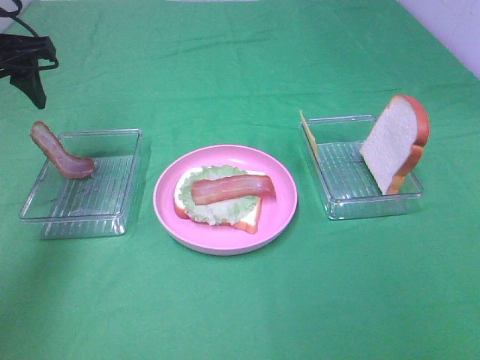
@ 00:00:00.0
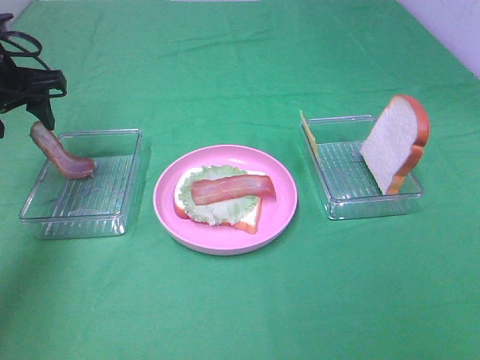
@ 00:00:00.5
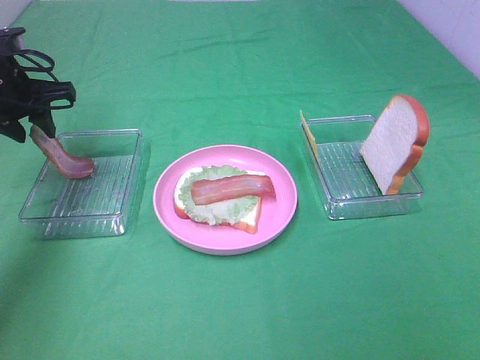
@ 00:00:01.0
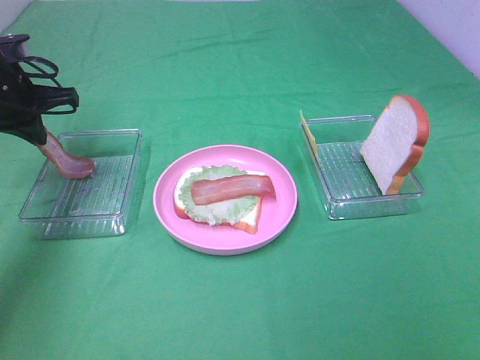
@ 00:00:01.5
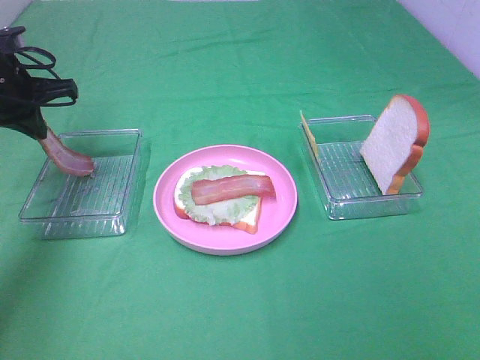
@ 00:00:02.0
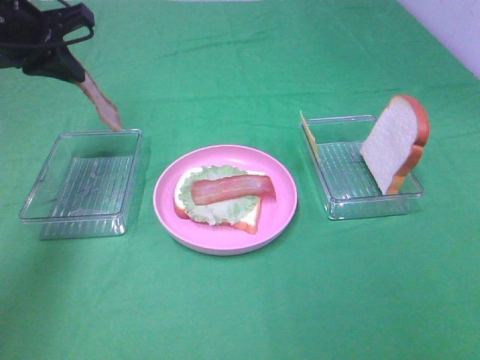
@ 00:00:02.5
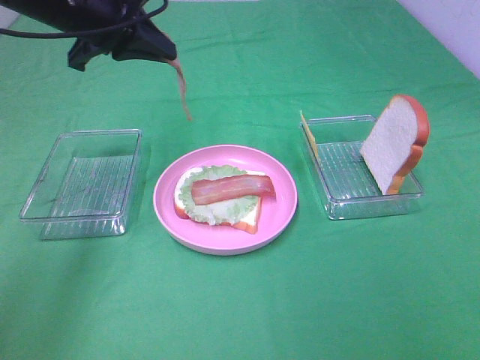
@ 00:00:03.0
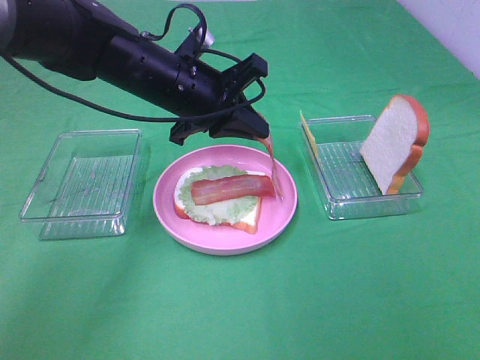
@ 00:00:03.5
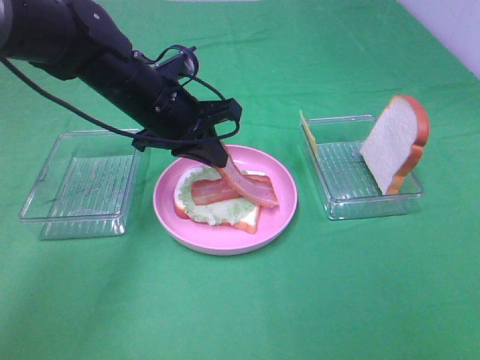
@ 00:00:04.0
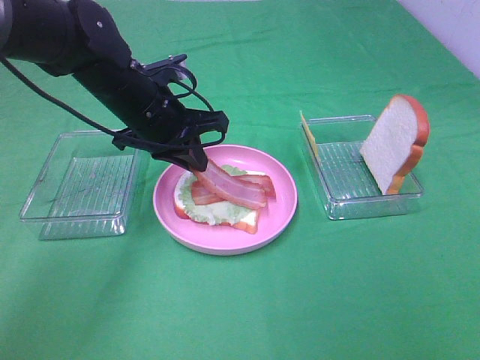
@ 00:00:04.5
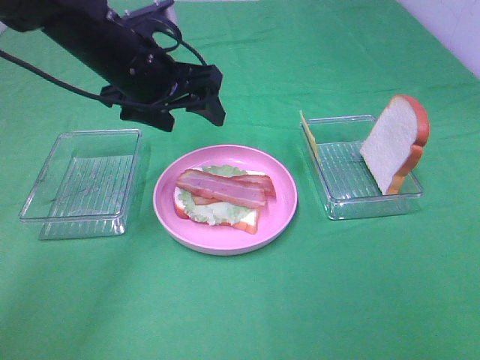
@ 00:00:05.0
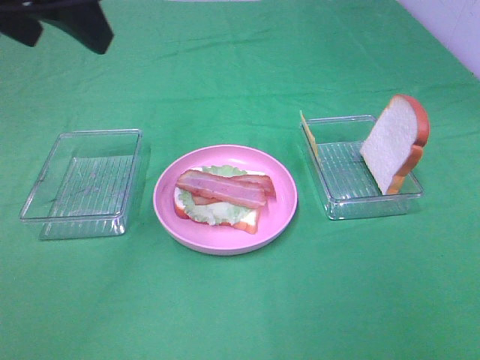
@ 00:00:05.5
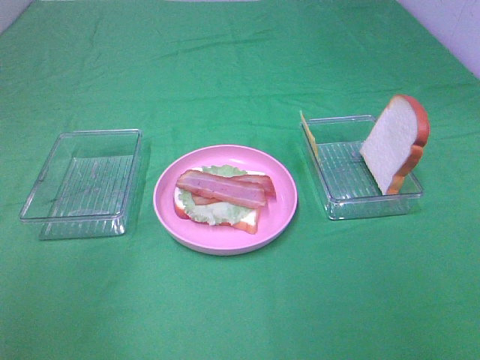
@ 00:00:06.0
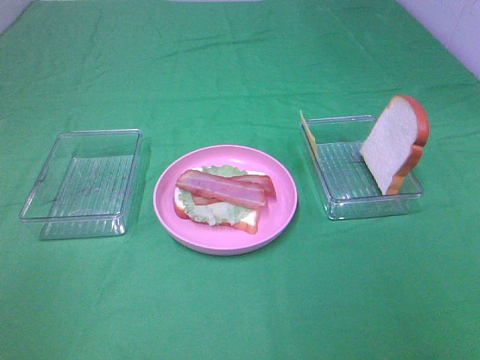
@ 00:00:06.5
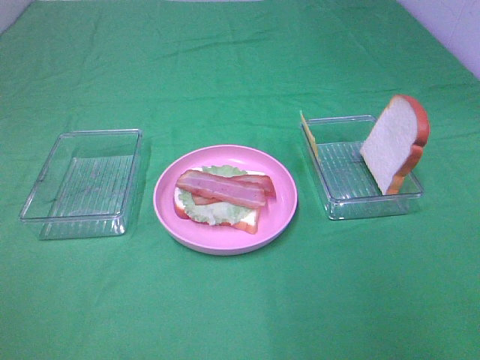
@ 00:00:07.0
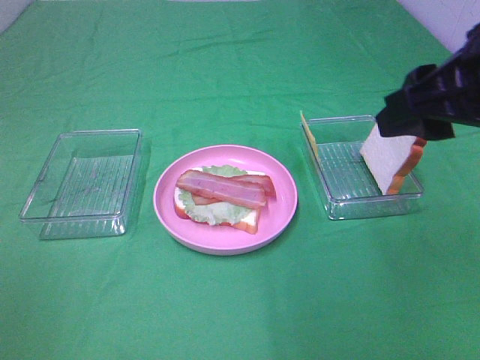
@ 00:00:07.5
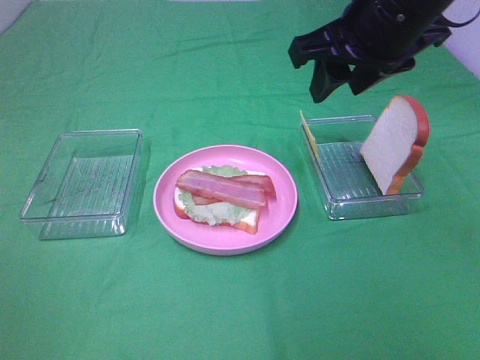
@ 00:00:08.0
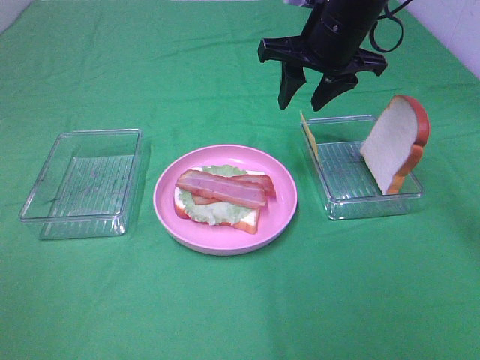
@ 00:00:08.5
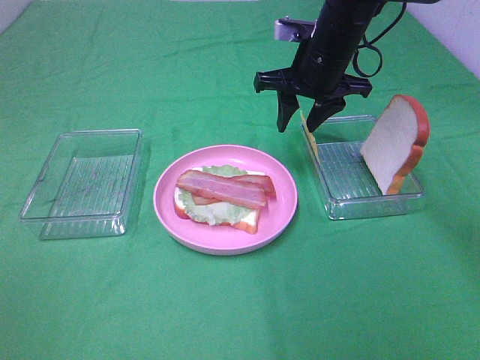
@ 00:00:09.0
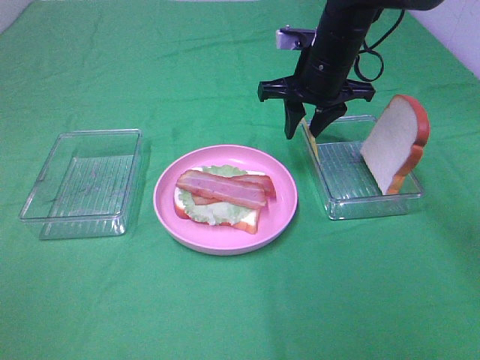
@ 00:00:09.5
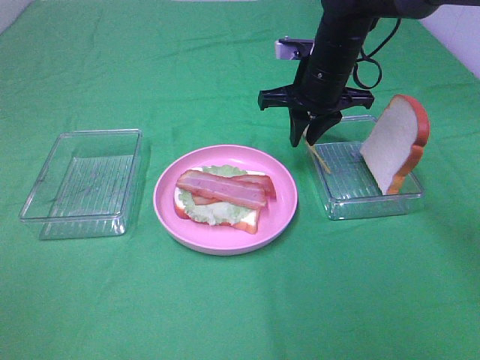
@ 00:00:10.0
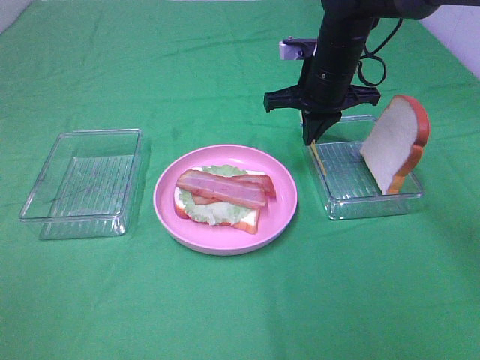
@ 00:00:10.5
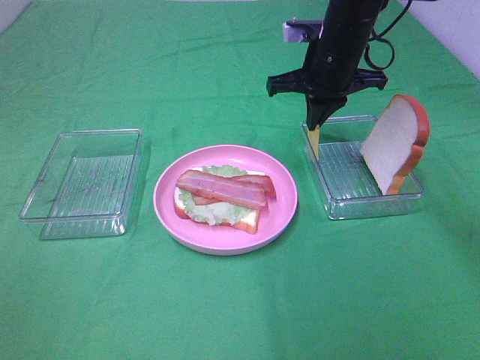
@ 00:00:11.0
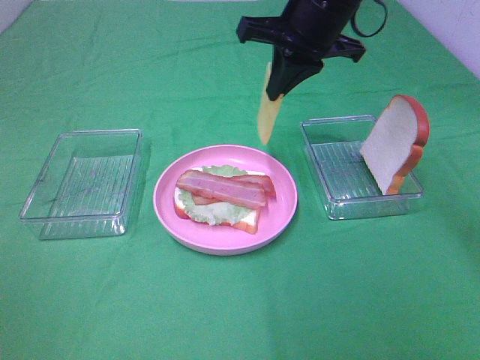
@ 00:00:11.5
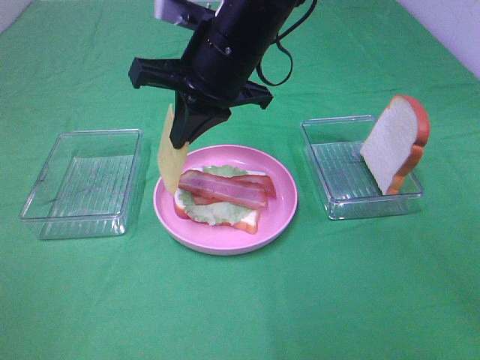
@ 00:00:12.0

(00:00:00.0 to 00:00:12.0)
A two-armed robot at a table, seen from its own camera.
Task of the whole recording: Make sandwiches.
Step, 00:00:00.0 - 00:00:02.0: Left hand:grab the bacon.
Step, 00:00:02.5 - 00:00:05.0: Left hand:place bacon on bacon.
Step, 00:00:05.5 - 00:00:10.5: Right hand:grab the cheese slice.
00:00:00.0 - 00:00:02.0: The left gripper shifts some 5 cm downward, and closes its fingers.
00:00:02.0 - 00:00:04.0: The left gripper travels to the right by about 20 cm.
00:00:04.0 - 00:00:06.0: The left gripper is displaced backward, upward and to the left by some 35 cm, and opens up.
00:00:06.0 - 00:00:08.0: The right gripper is displaced forward and to the left by about 35 cm. Meanwhile the left gripper moves backward, to the left and downward, roughly 15 cm.
00:00:08.0 - 00:00:10.0: The right gripper heads downward and forward, covering some 15 cm.
00:00:10.0 - 00:00:12.0: The right gripper heads to the left, backward and upward, covering about 15 cm, and closes.

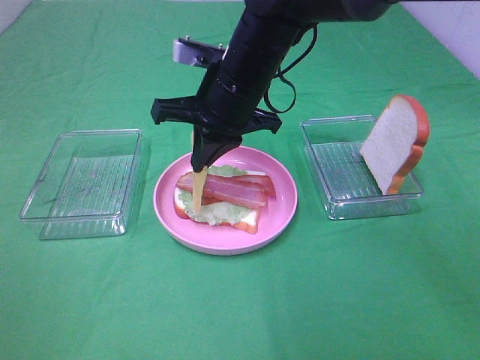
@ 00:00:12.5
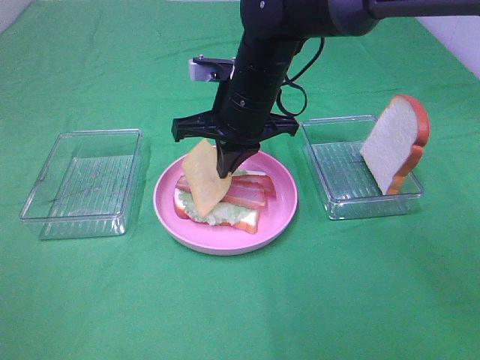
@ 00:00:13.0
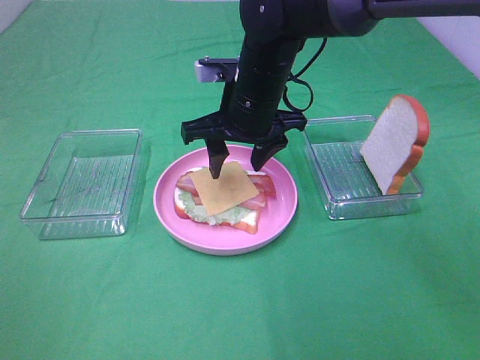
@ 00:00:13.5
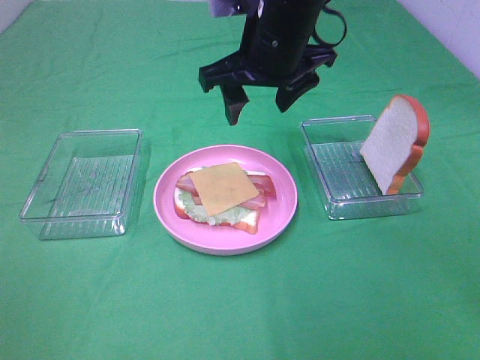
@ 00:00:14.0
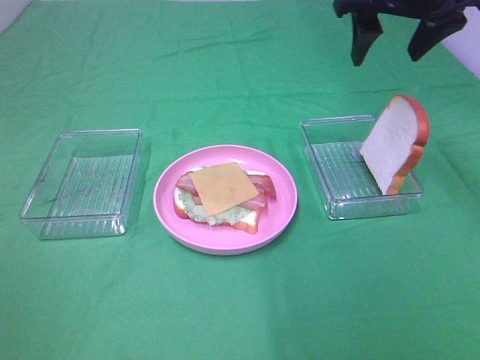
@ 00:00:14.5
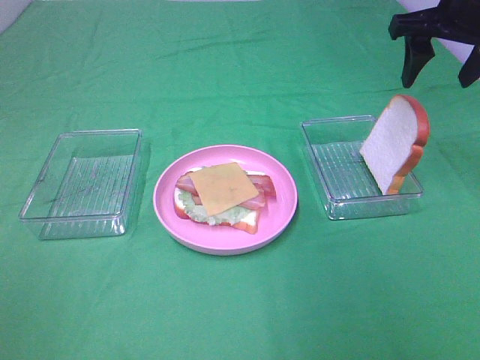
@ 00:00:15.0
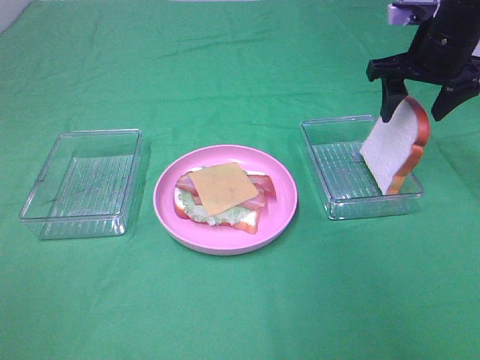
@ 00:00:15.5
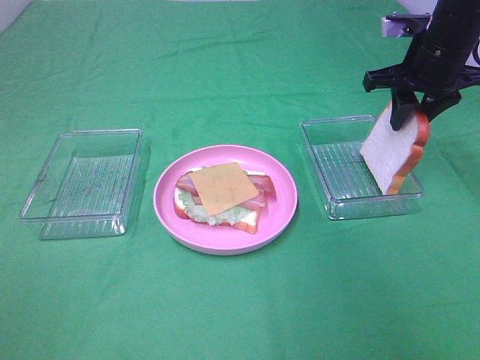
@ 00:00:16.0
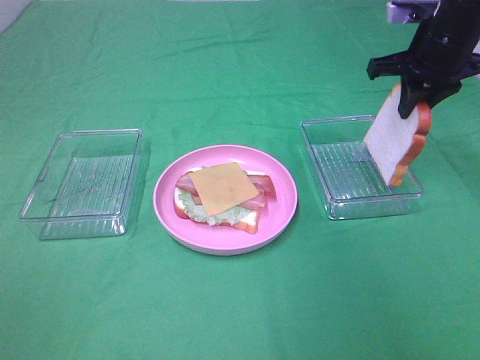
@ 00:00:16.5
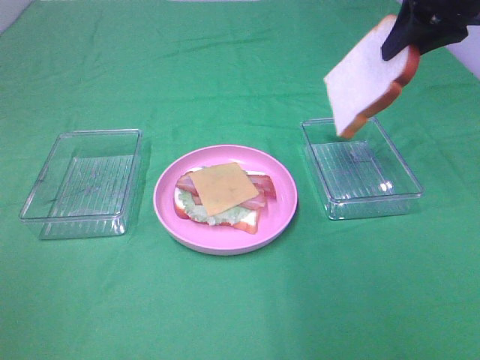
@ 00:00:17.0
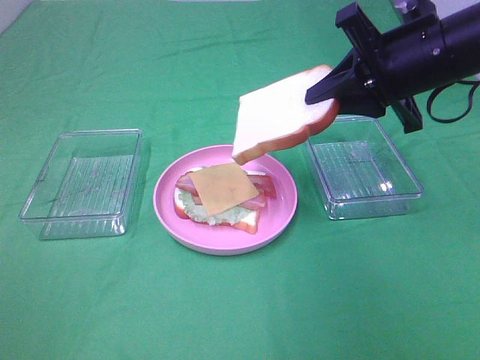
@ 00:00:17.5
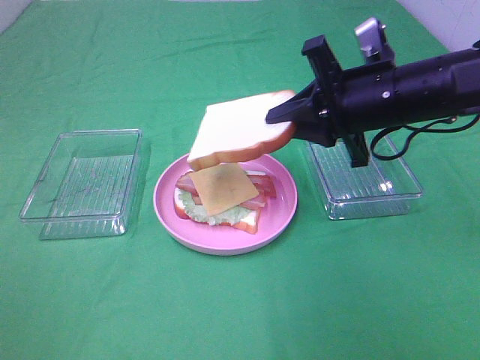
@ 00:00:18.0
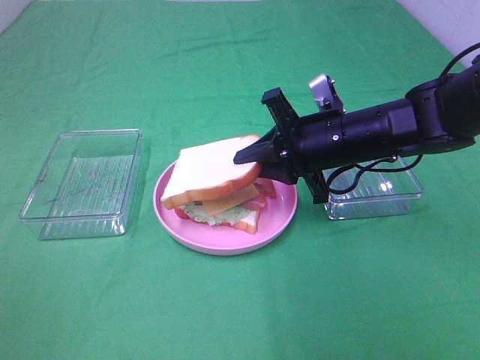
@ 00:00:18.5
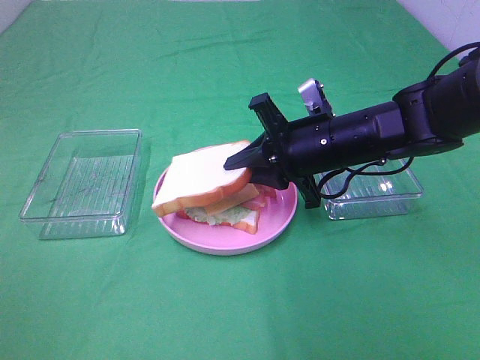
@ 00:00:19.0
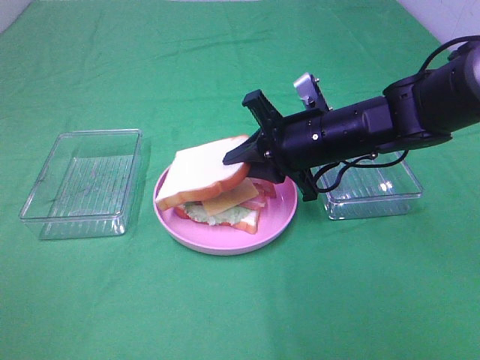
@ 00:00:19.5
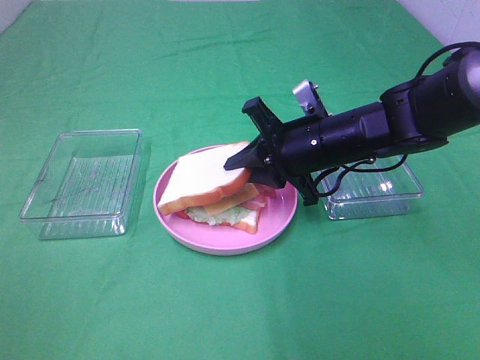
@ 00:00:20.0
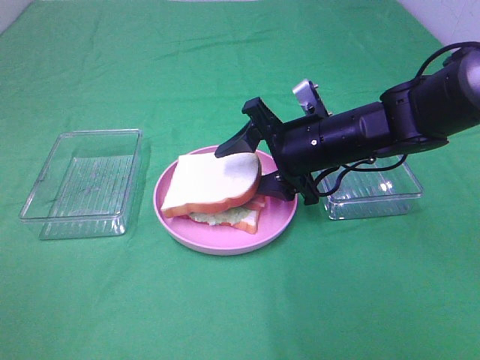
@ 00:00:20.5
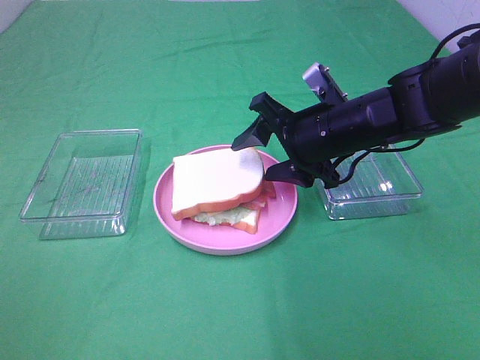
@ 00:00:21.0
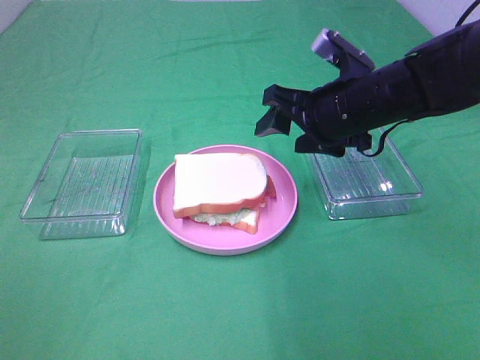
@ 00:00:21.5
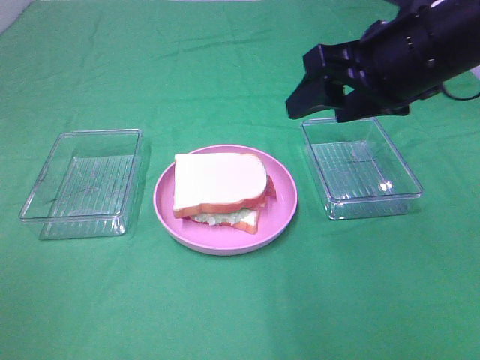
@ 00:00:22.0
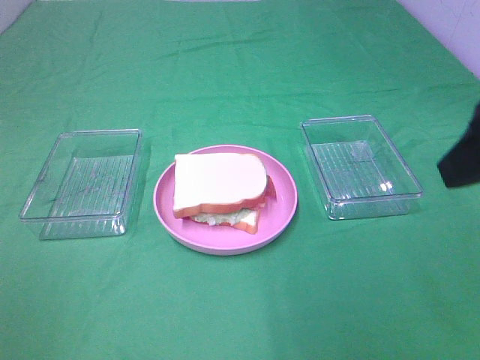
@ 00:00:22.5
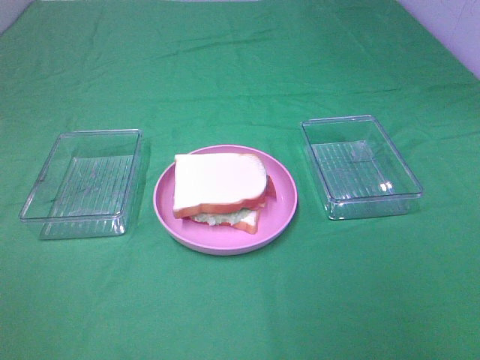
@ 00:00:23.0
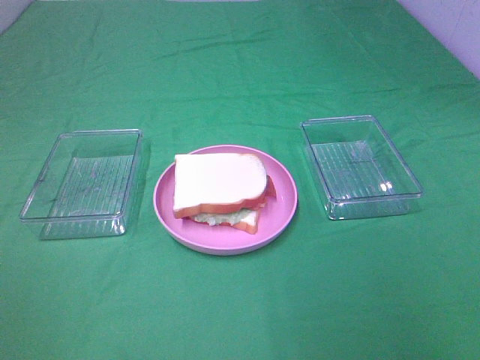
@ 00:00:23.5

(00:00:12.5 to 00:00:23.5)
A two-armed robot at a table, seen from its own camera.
Task of the whole recording: Make sandwiches.
Step, 00:00:14.0 - 00:00:16.0: Right hand:grab the bread slice.
Step, 00:00:16.5 - 00:00:21.0: Right hand:place the bread slice on the cheese slice.
00:00:12.5 - 00:00:14.5: The right gripper moves to the right and upward, roughly 20 cm, and opens up.
00:00:14.5 - 00:00:16.0: The right gripper shifts approximately 10 cm downward and to the right, and closes up.
00:00:16.0 - 00:00:18.0: The right gripper heads backward and to the left, covering about 15 cm, and moves roughly 10 cm upward and comes back.
00:00:18.0 - 00:00:20.0: The right gripper heads downward, covering about 5 cm.
00:00:20.0 - 00:00:21.5: The right gripper is displaced upward by approximately 5 cm, and opens its fingers.
00:00:21.5 - 00:00:23.5: The right gripper travels backward and to the right by roughly 35 cm.

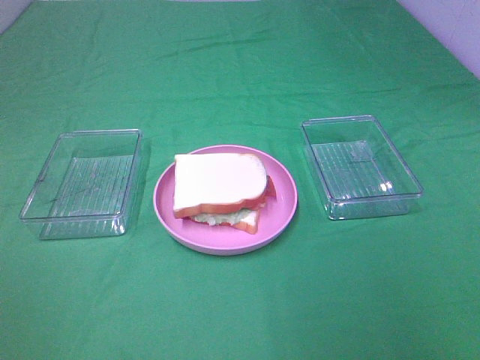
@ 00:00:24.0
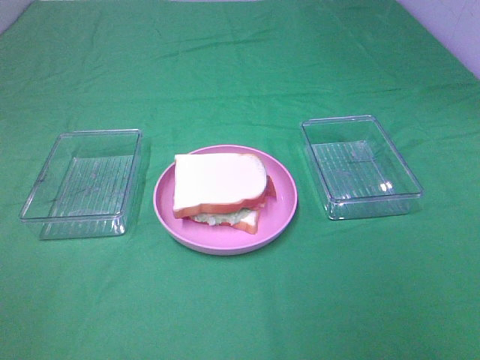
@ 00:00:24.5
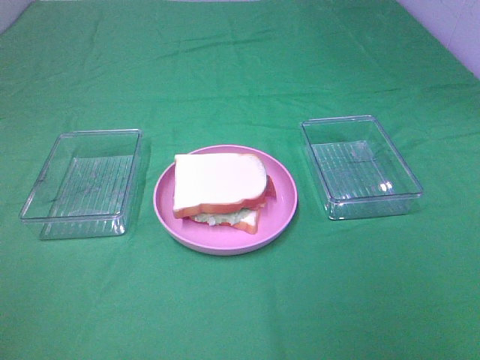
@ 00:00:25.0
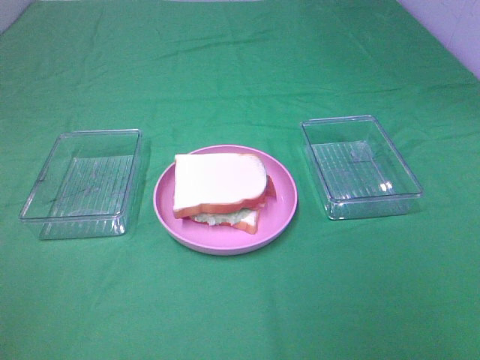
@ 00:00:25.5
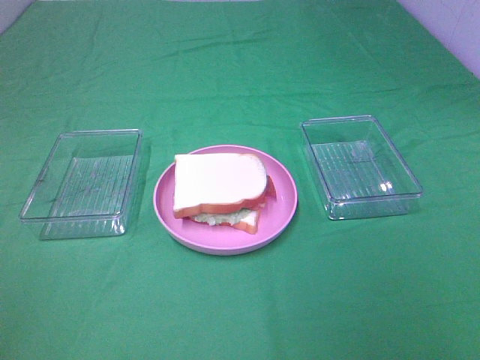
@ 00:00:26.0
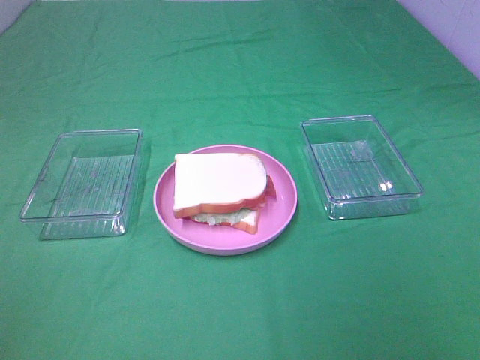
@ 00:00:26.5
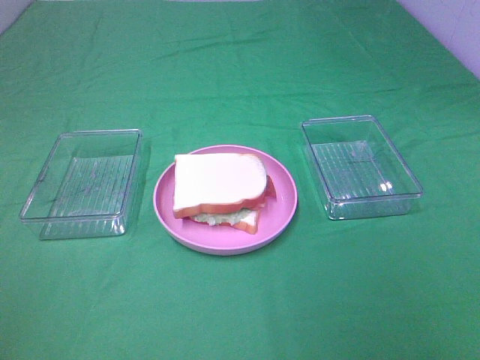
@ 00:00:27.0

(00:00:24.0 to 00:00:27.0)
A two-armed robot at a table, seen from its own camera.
Task of the whole recording: Make sandwiches.
00:00:25.5 - 00:00:27.0: The two grippers keep their place.
